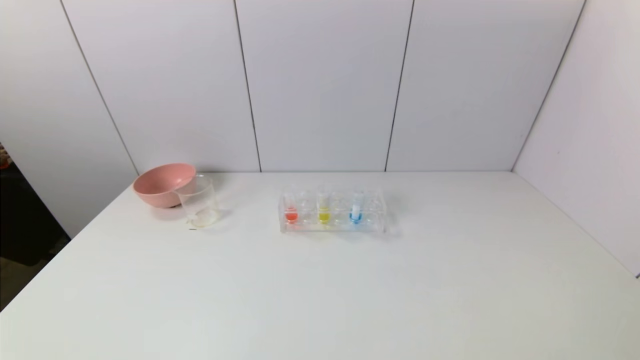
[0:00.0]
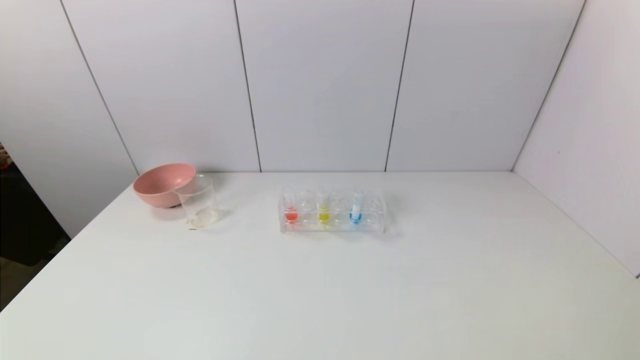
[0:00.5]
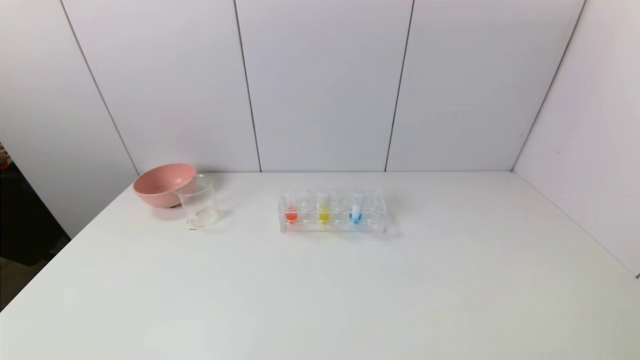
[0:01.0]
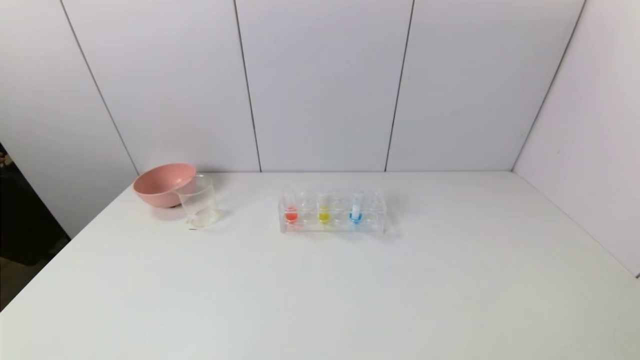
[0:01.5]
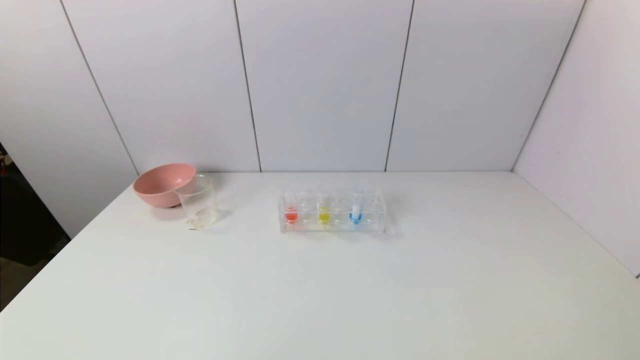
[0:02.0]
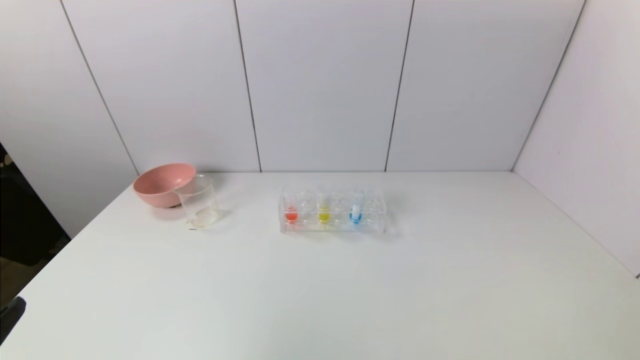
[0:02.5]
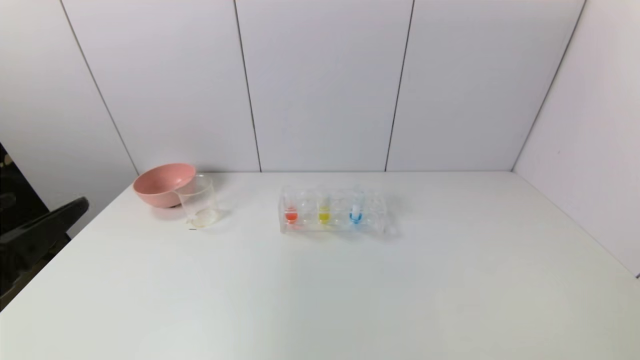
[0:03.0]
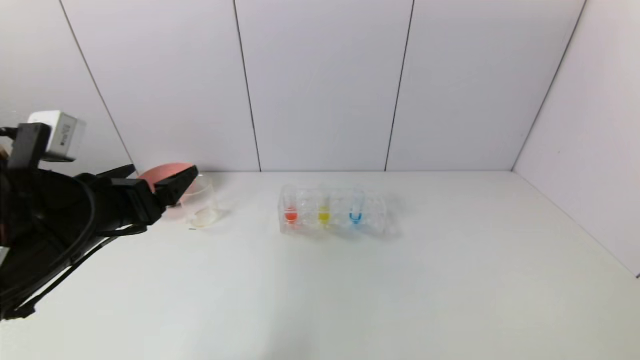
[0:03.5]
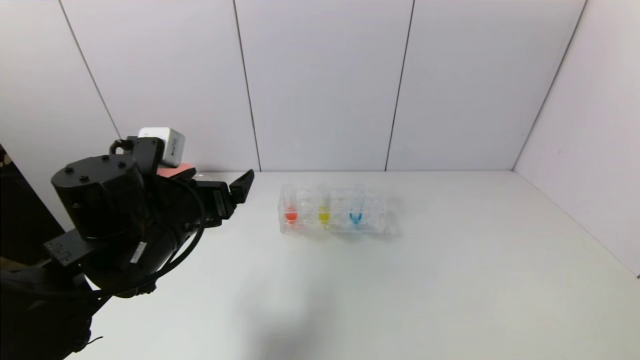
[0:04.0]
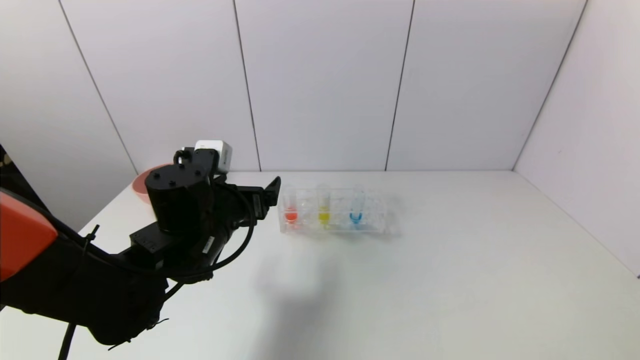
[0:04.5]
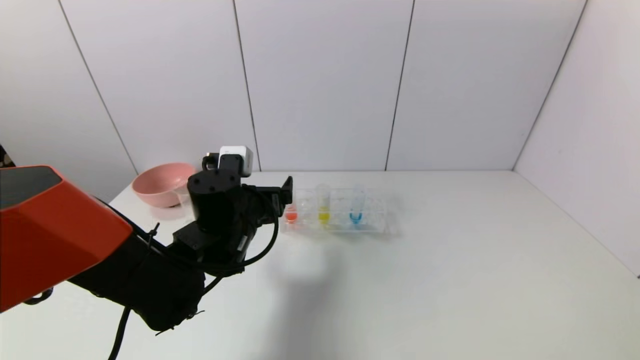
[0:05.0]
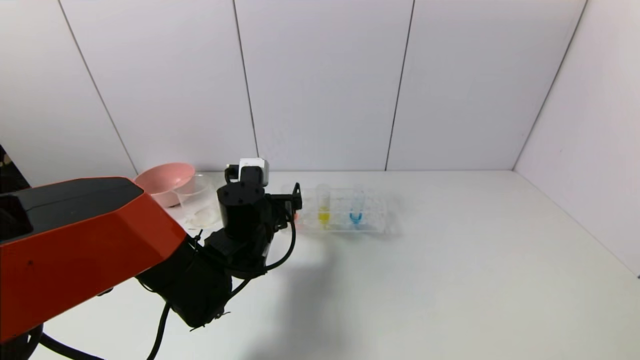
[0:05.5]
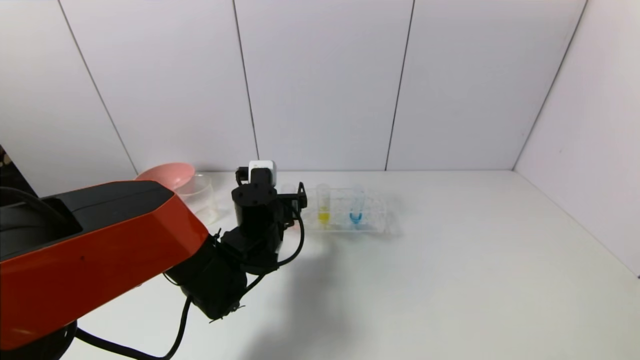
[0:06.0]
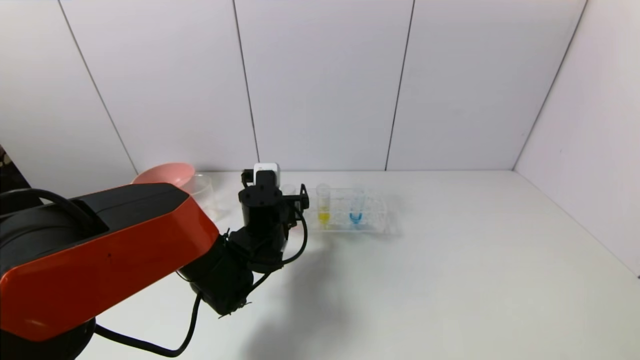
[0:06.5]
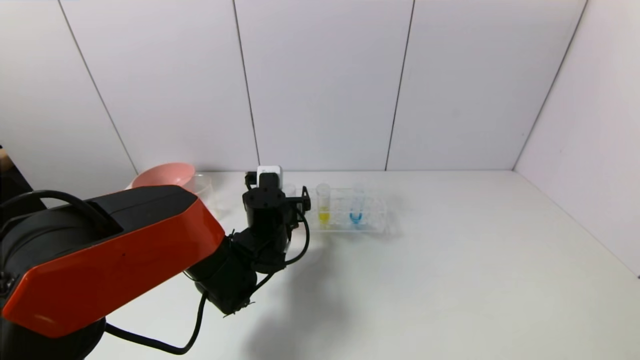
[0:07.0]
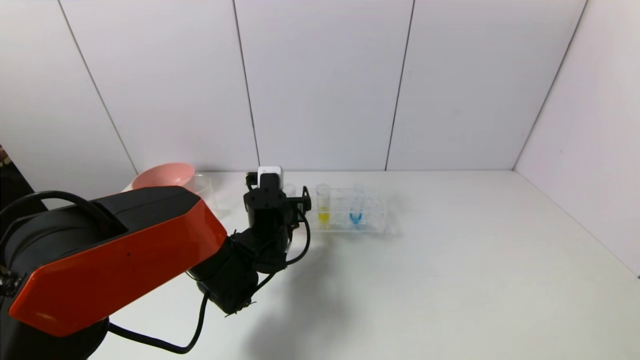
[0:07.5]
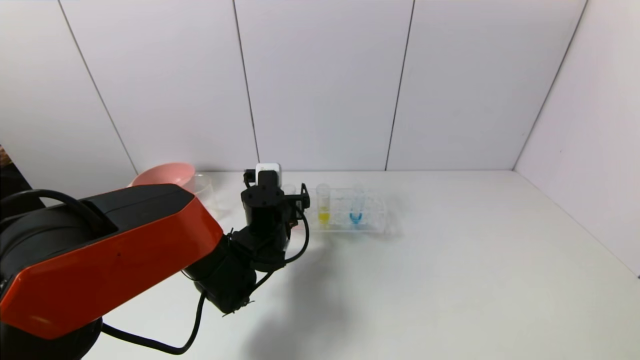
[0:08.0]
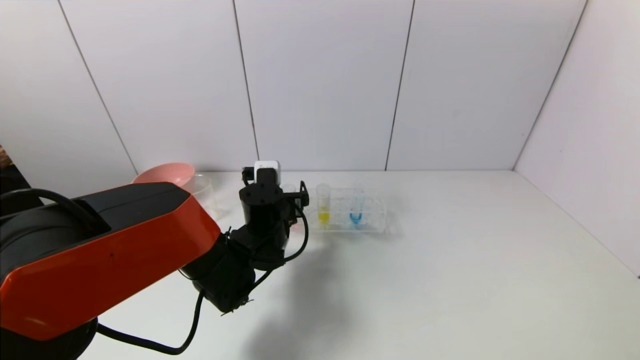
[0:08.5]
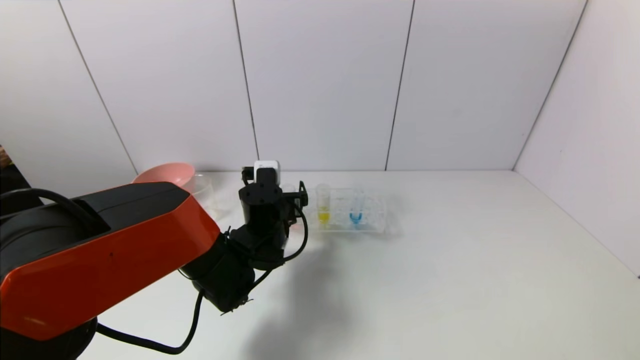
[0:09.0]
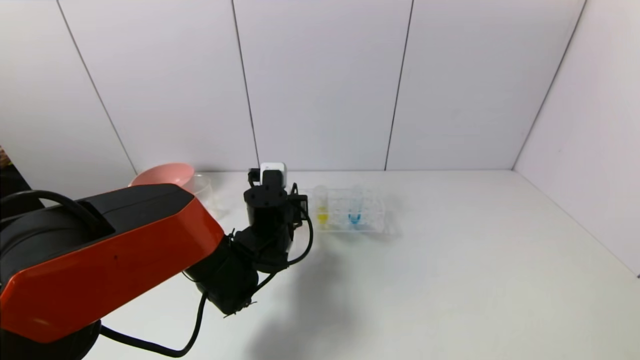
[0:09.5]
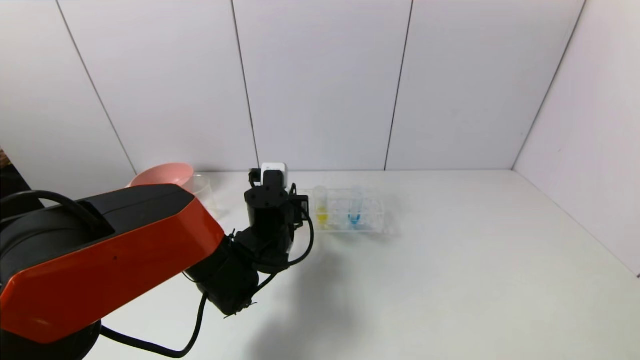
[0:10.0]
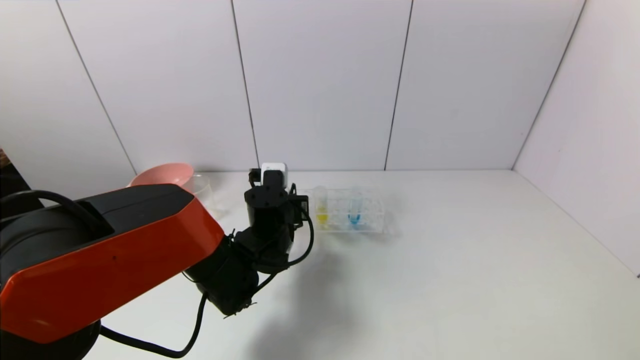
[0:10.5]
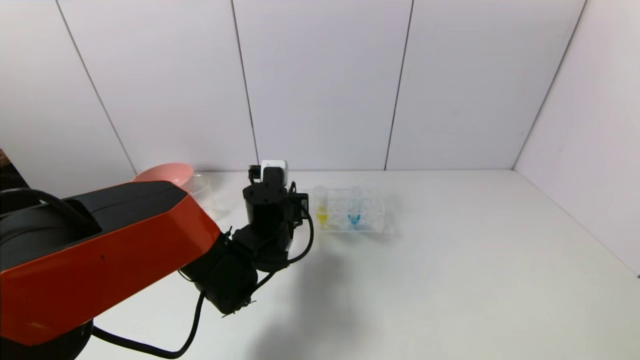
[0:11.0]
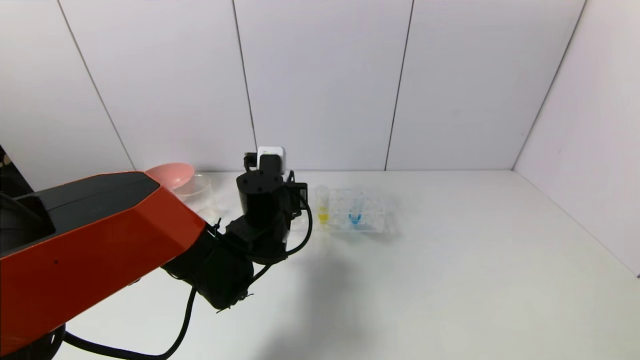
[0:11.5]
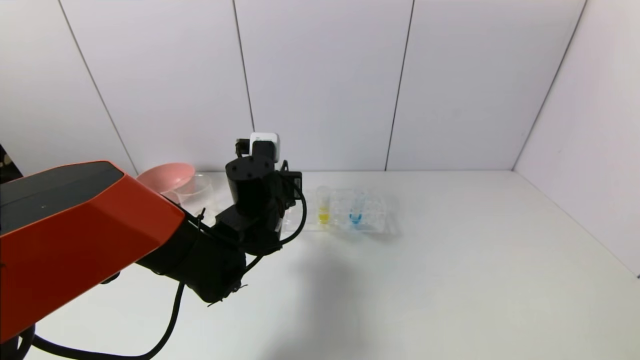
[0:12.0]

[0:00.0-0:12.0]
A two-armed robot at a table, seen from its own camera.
Task of the whole recording: pick up the test tube with yellow pigment and the test tube with red pigment by grippers and pour them into the beaker.
Step, 0:00.0 to 0:09.5: Grasp the red reagent with the left gripper.
0:02.0 to 0:04.0: The left gripper shifts about 30 cm forward and to the right.
0:04.0 to 0:06.0: The left gripper travels to the right, forward and downward by approximately 15 cm.
0:06.0 to 0:08.0: The grippers make only small movements.
0:08.0 to 0:10.0: The left gripper closes up.
0:10.0 to 0:12.0: The left gripper shifts approximately 5 cm upward.

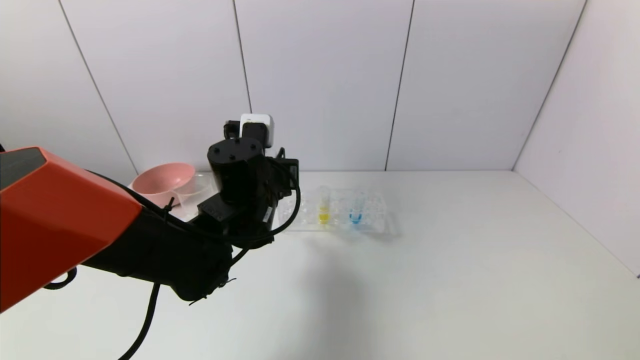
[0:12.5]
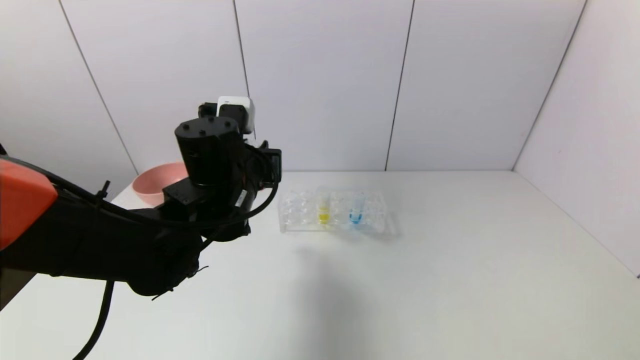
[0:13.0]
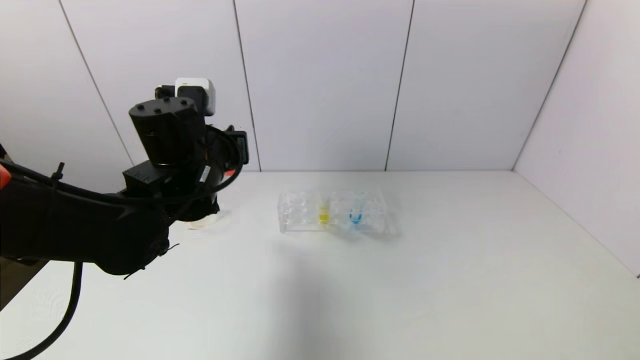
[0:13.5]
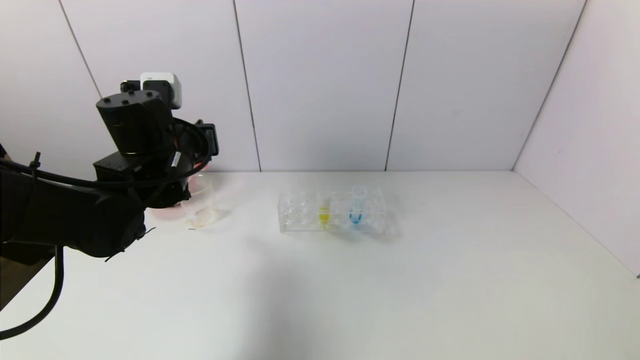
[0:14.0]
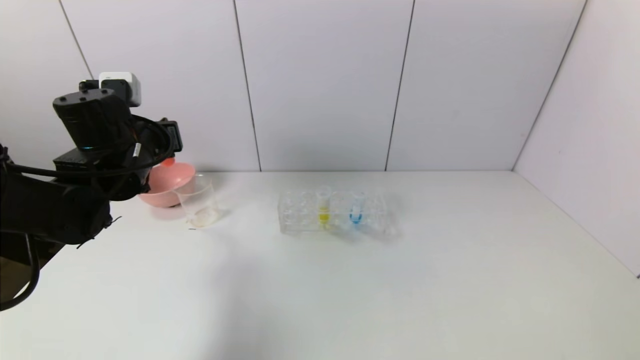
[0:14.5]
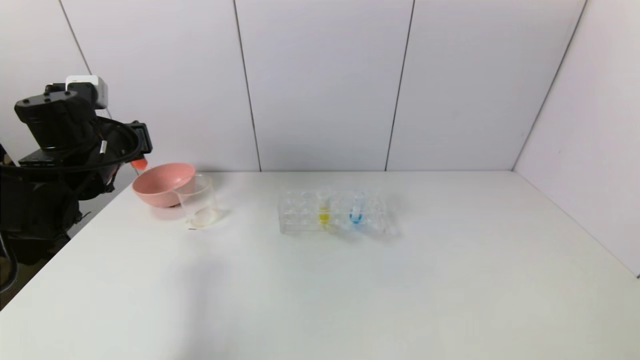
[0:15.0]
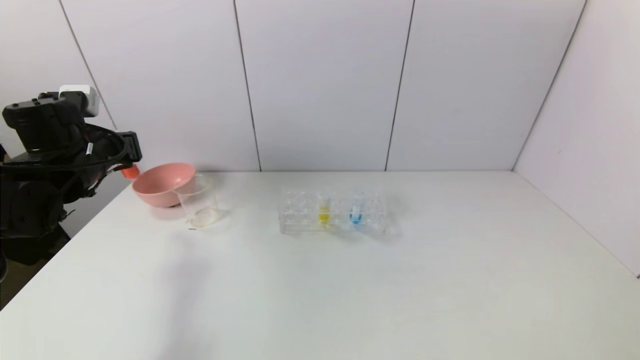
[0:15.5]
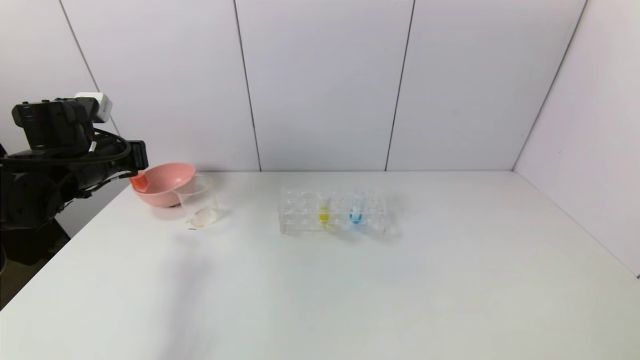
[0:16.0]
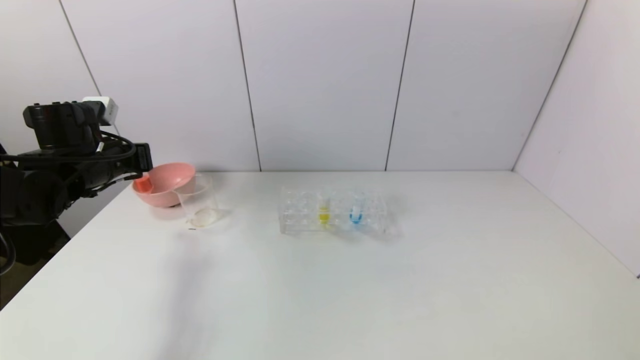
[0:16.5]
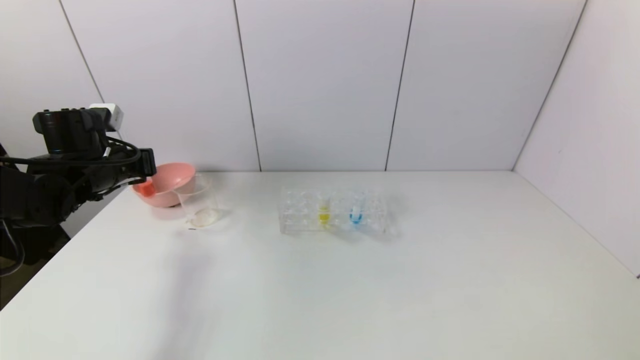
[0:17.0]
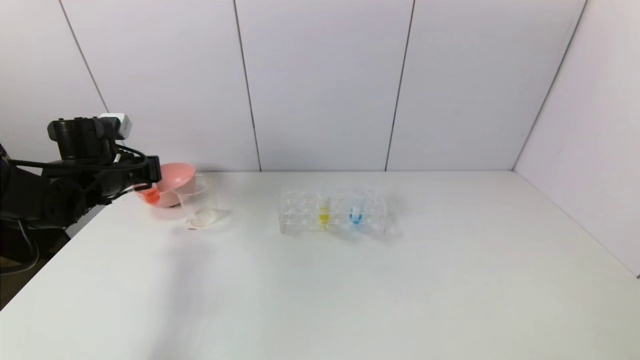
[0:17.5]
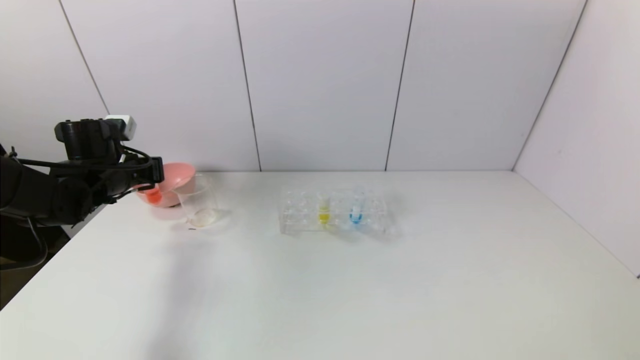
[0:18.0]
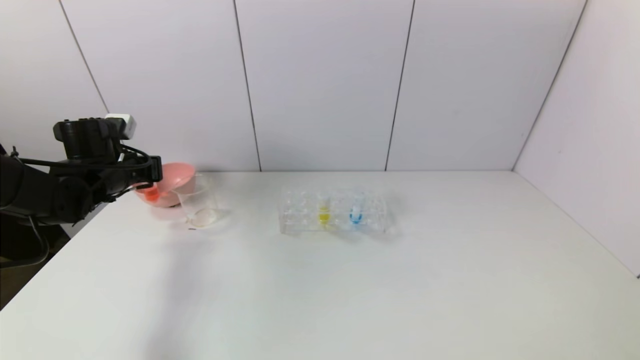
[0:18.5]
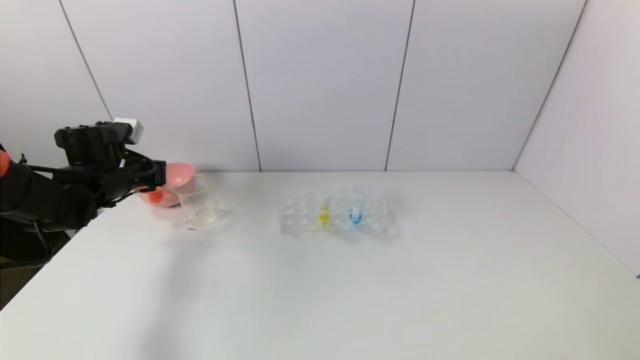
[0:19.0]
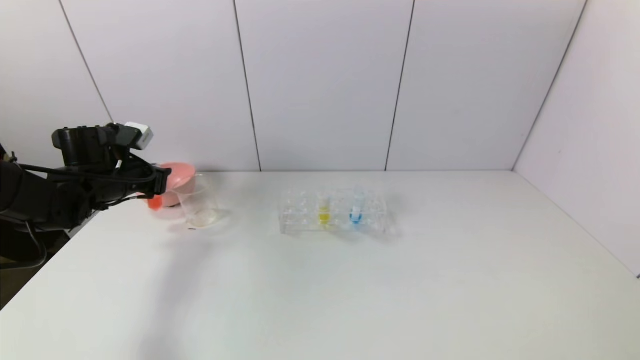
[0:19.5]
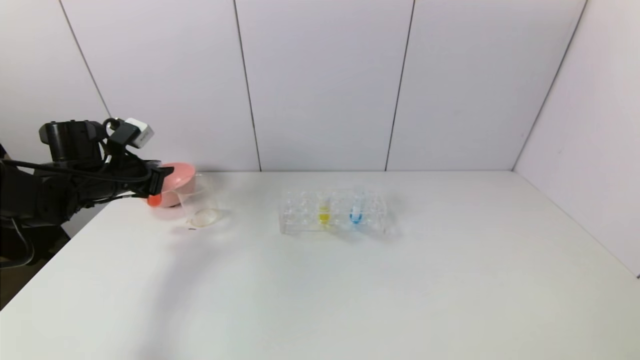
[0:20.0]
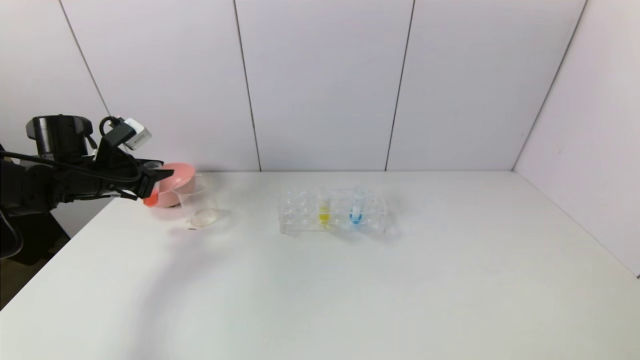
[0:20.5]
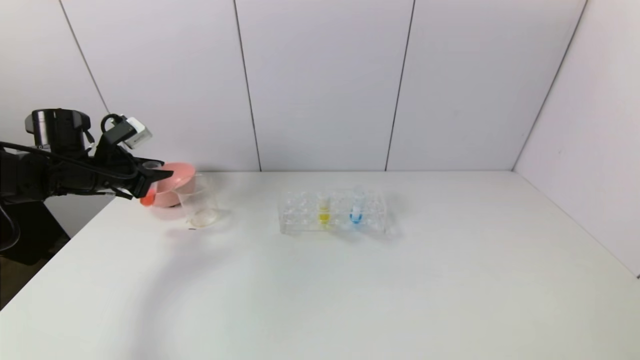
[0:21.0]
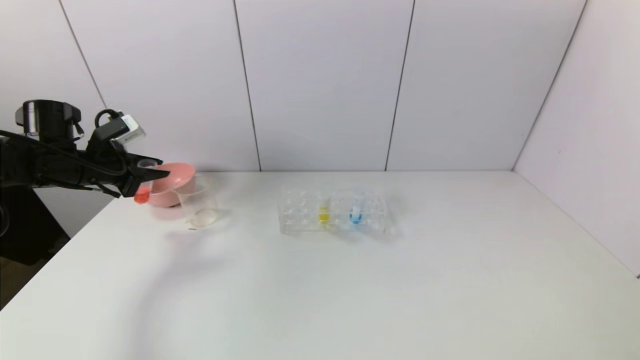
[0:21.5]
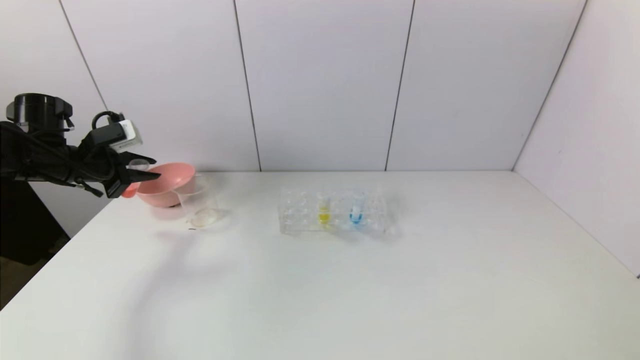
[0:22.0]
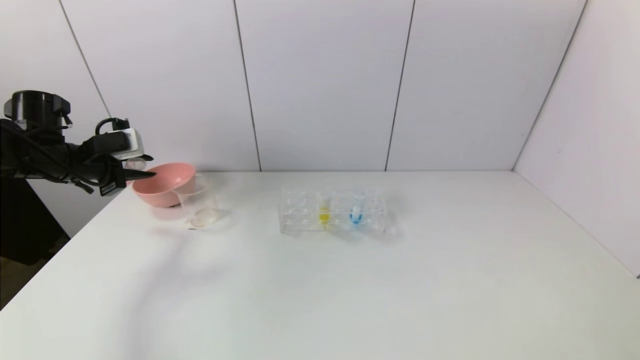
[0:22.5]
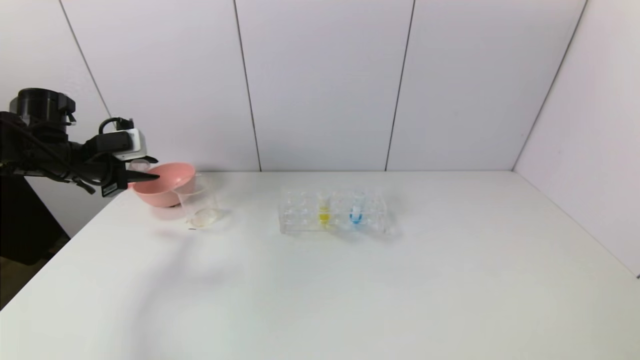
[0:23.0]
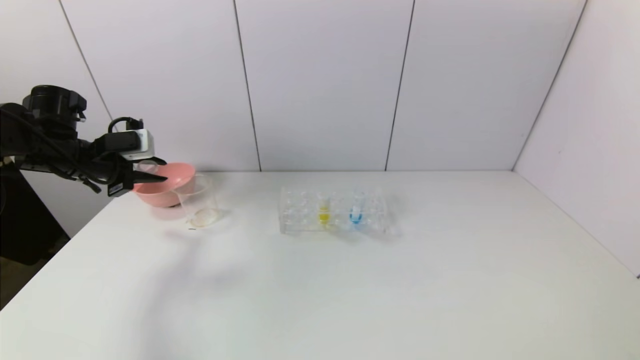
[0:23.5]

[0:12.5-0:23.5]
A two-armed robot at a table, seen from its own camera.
Task of the whole recording: pick up the test tube with yellow pigment and the test tube with red pigment by grippers and pour them into the beaker.
0:12.5 to 0:14.5: The left gripper shifts some 15 cm to the left.
0:14.5 to 0:16.0: The left gripper shifts about 10 cm to the left.
0:16.0 to 0:18.0: The left gripper changes place by about 5 cm.
